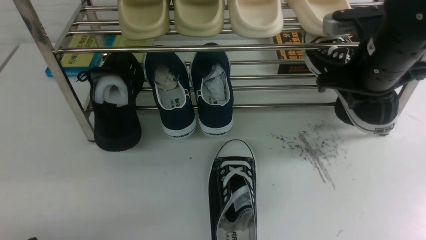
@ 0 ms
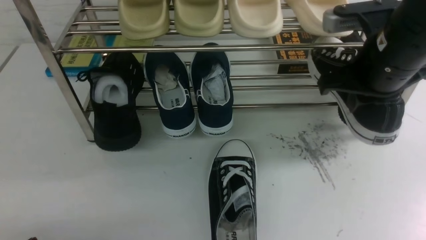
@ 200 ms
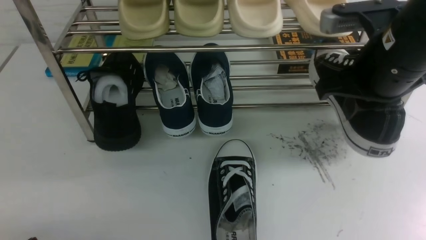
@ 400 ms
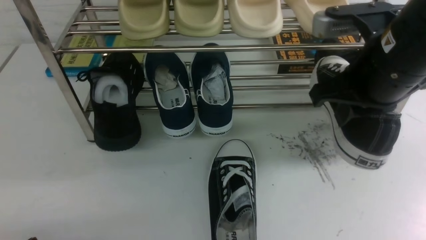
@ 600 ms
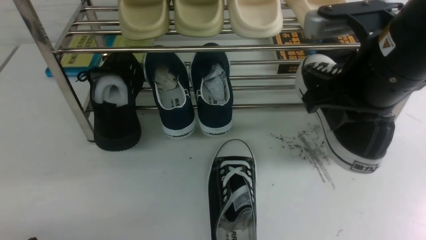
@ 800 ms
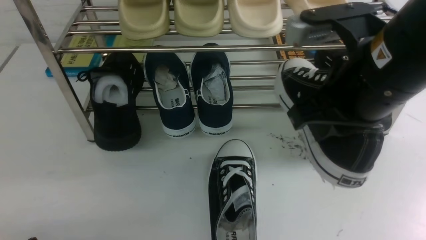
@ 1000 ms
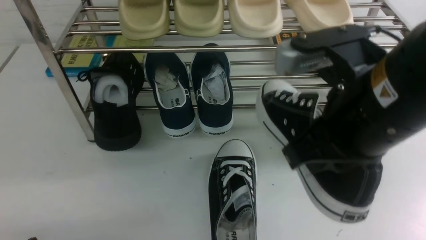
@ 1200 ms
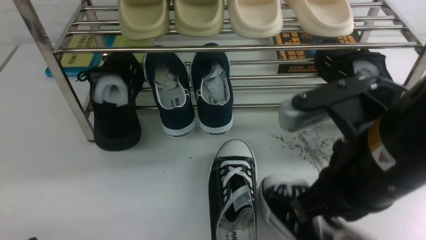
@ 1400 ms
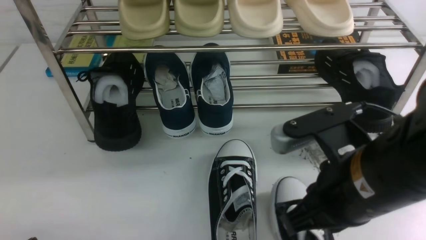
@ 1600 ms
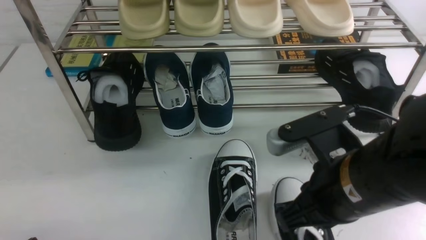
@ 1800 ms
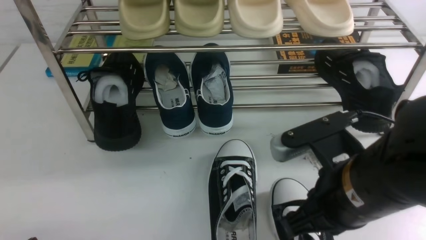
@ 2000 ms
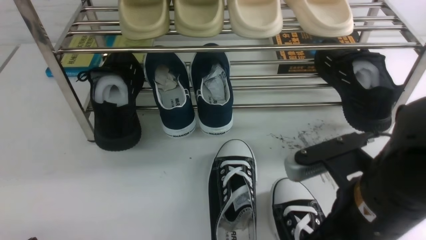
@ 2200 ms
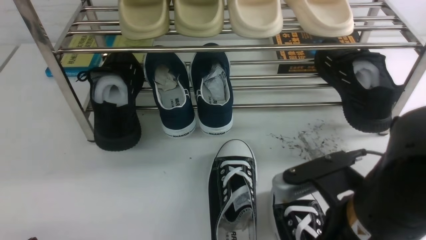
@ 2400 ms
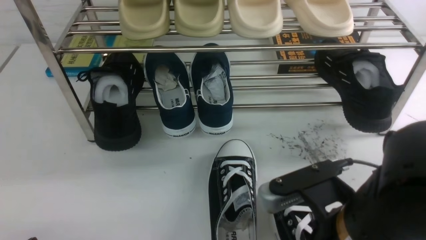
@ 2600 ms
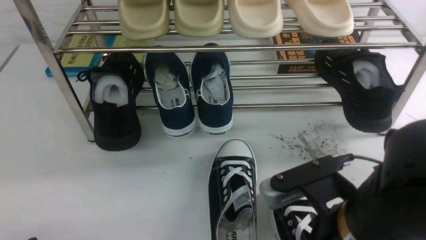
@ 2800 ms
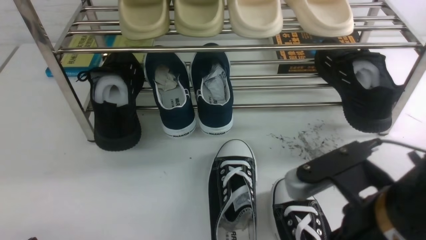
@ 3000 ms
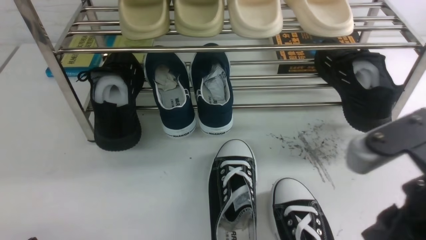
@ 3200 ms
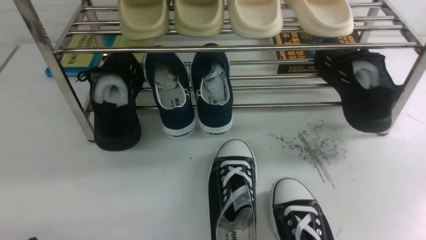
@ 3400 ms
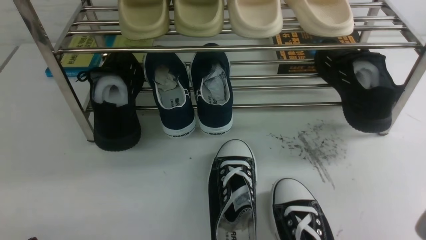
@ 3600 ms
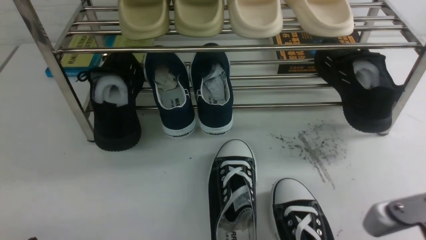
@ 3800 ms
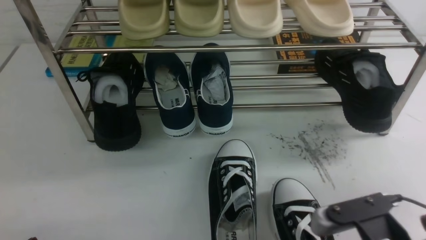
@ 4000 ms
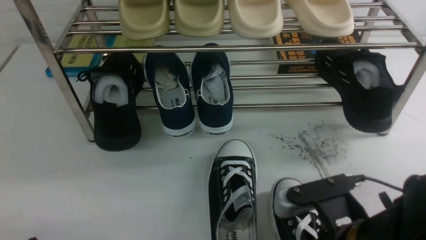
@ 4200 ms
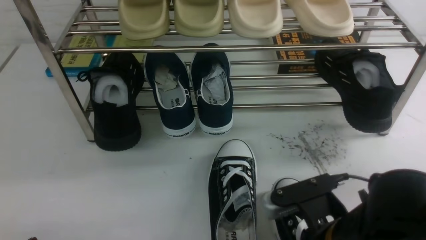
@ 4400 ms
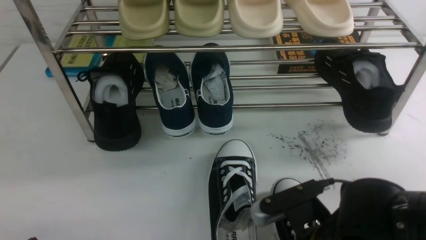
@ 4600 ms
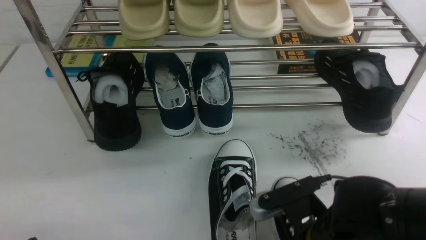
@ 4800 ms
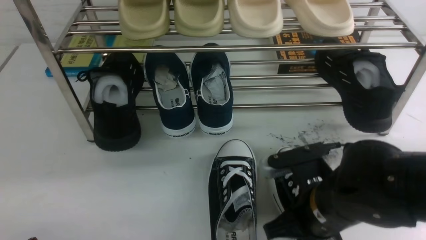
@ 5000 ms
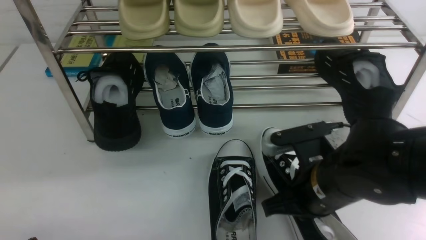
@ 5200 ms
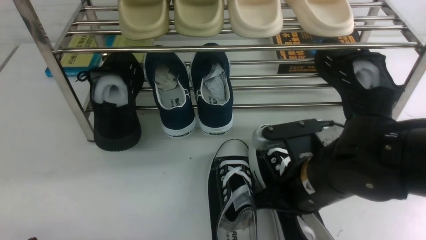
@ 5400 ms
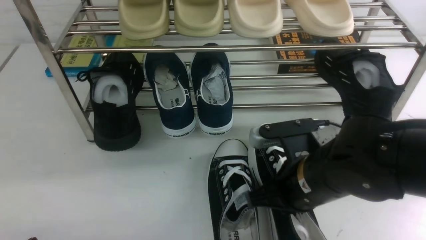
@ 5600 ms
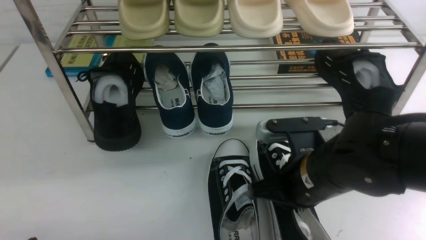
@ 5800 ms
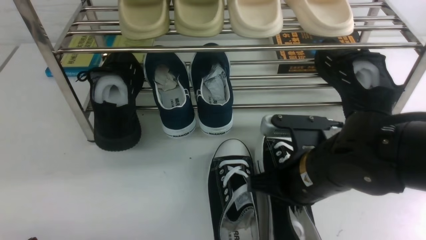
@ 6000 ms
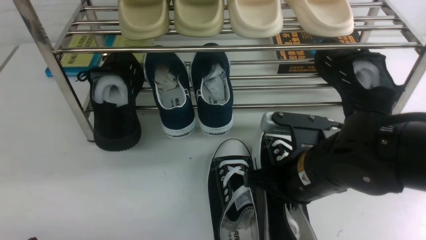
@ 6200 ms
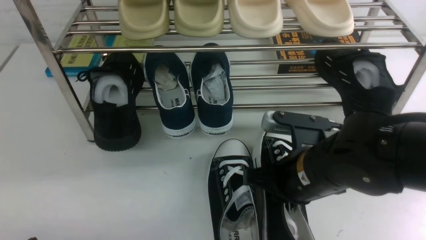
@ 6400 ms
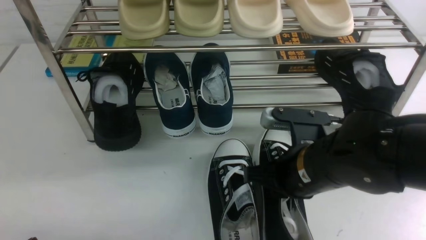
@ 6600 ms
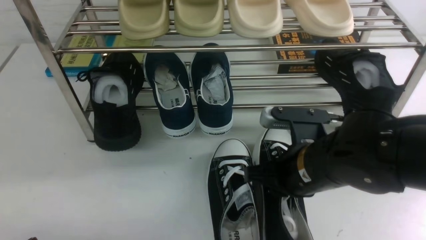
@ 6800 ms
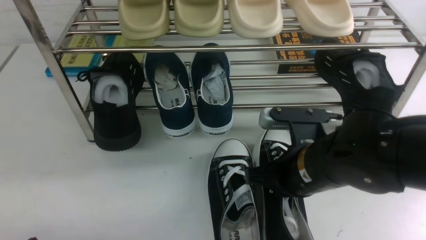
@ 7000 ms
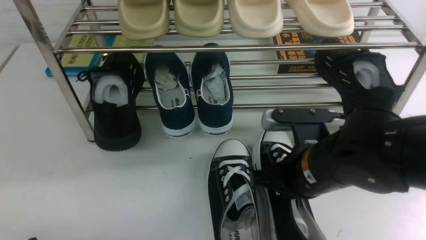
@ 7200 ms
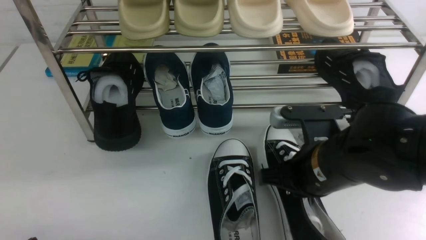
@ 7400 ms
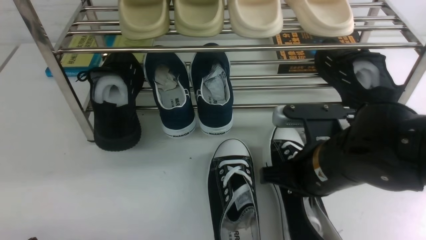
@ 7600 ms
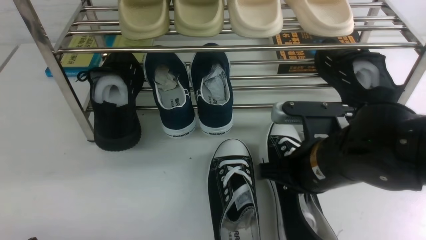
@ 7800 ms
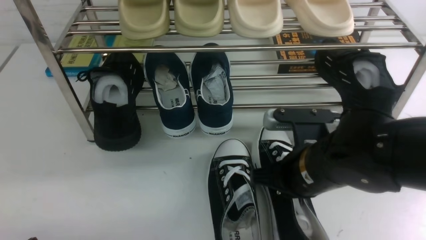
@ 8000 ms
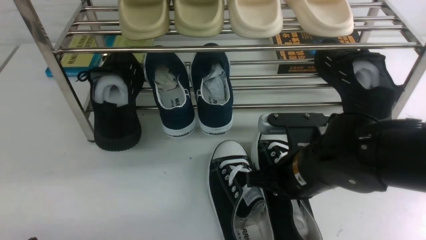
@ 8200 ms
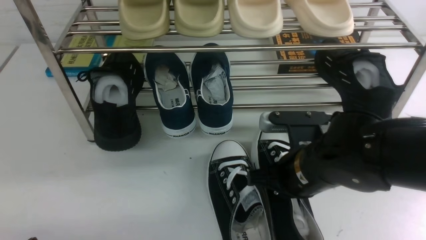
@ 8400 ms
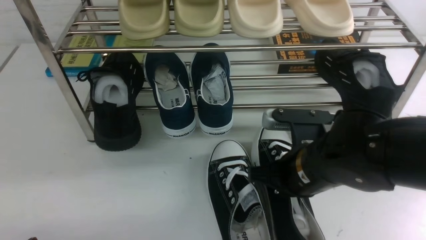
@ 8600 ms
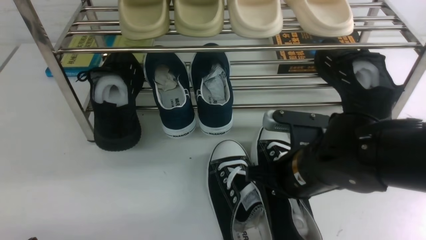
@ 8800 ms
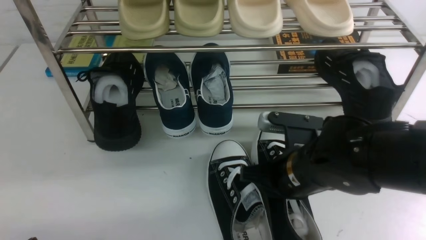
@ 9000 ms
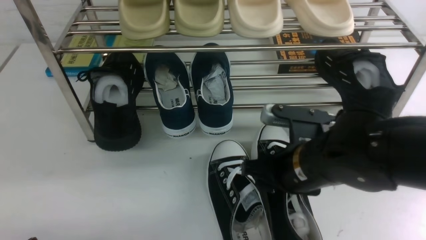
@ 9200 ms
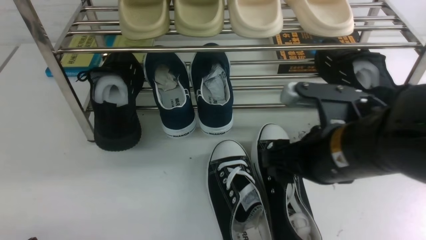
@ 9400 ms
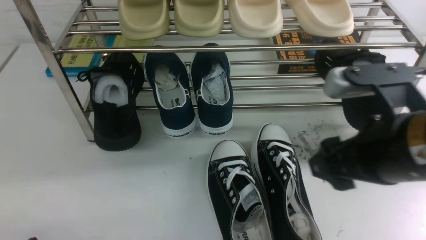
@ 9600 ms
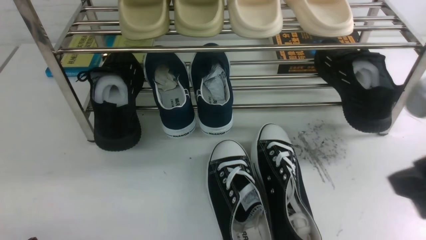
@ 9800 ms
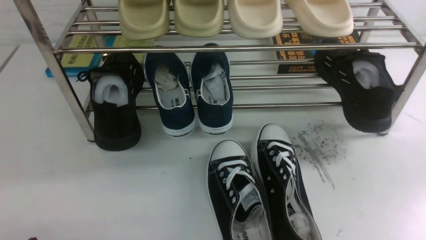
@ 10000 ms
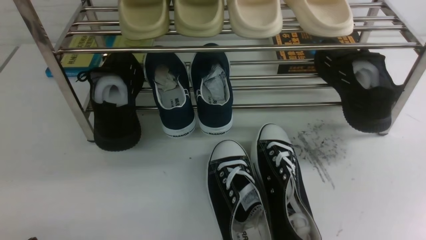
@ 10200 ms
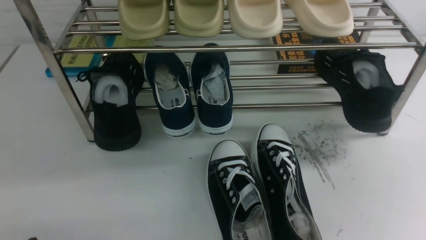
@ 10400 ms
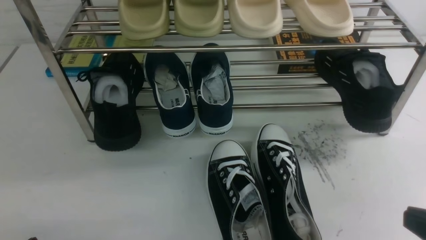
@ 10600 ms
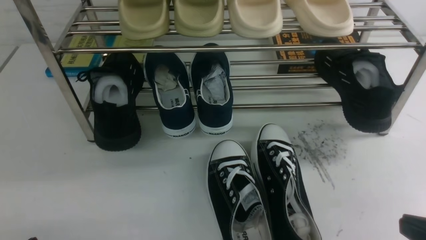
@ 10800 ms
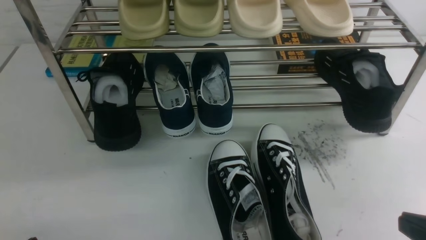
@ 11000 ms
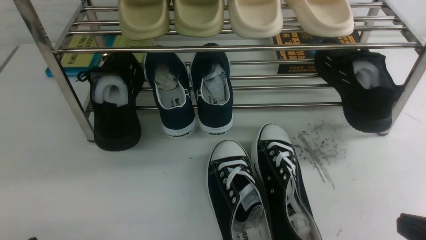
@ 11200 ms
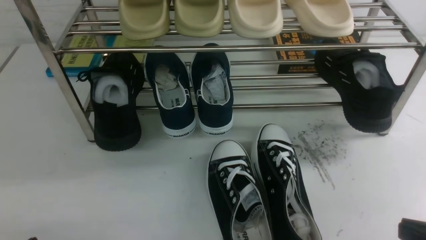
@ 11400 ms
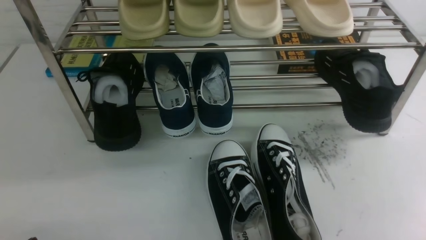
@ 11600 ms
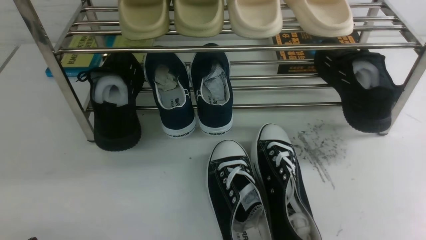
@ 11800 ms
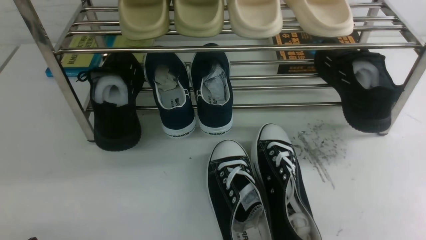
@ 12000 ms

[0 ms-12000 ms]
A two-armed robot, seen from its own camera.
Step, 0 ms to 2000 ms: use the right arm to take out the clamped shoe from the shoe rack and put it down.
0 ms to 1600 ms: The right gripper travels backward and to the left by roughly 15 cm.
1600 ms to 3000 ms: The right gripper changes place by some 5 cm, and opens its fingers.
3000 ms to 4400 ms: The right gripper goes approximately 10 cm downward, and closes and opens again.
4400 ms to 6000 ms: The right gripper travels forward by approximately 10 cm, and closes up.
6000 ms to 7600 ms: The grippers move only a little.
7600 ms to 9000 ms: The right gripper opens its fingers.
9000 ms to 10400 ms: The right gripper shifts some 25 cm to the right, backward and upward, and closes up.

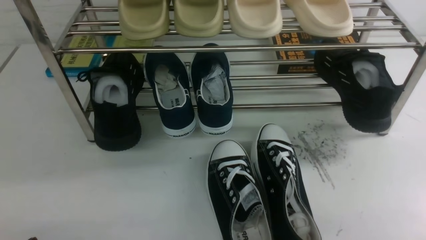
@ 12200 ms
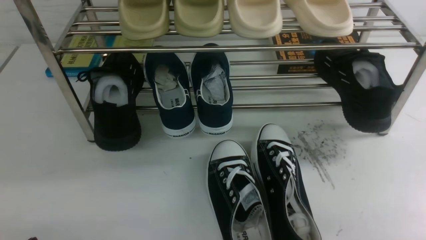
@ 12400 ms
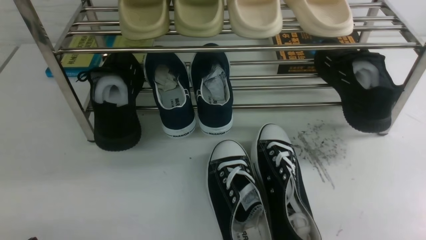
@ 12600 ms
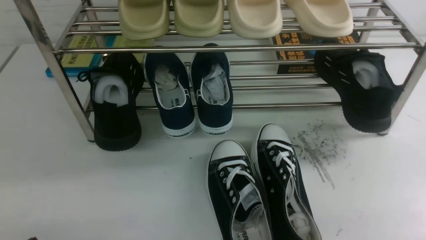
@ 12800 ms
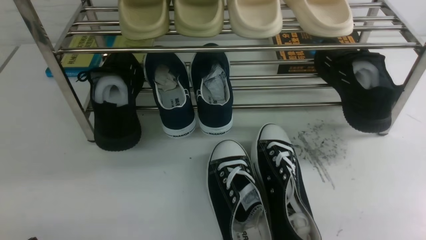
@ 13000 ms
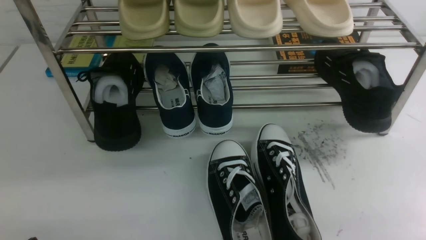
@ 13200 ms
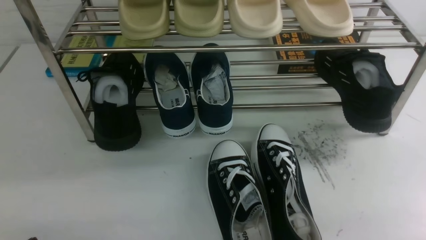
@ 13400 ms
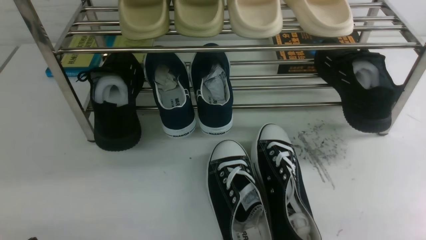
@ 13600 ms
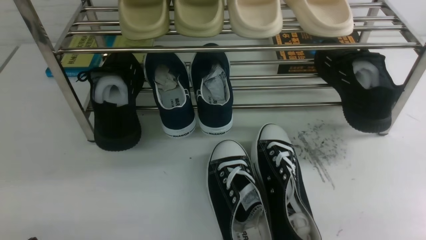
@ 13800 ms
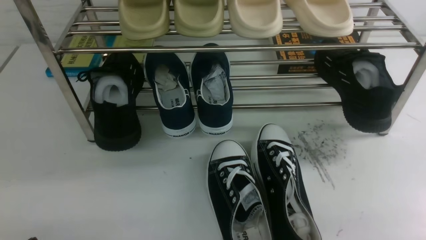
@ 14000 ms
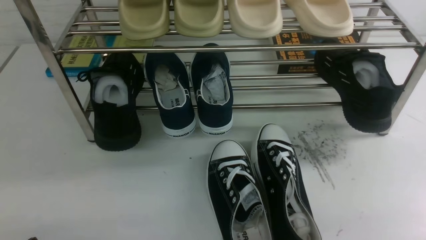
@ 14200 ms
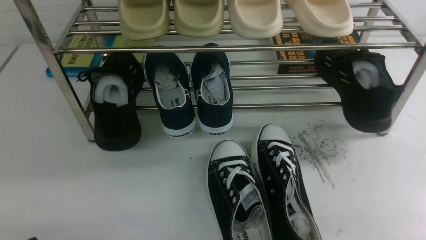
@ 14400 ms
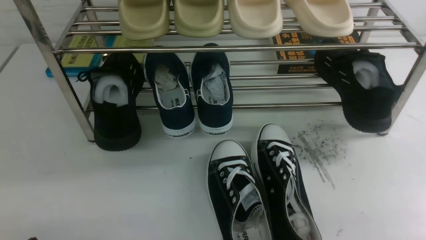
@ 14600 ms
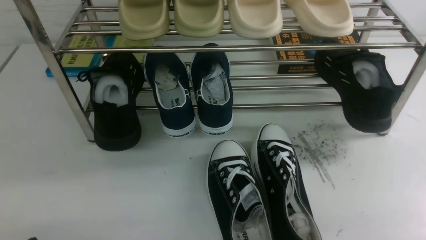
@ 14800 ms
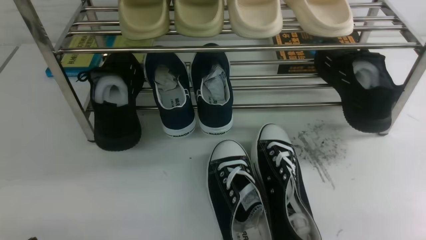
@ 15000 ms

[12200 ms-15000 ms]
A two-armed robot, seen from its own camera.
13600 ms to 15000 ms: Both grippers stay put.
